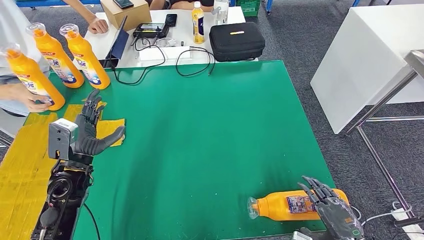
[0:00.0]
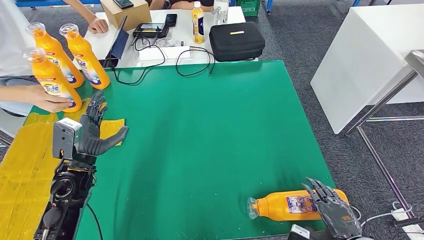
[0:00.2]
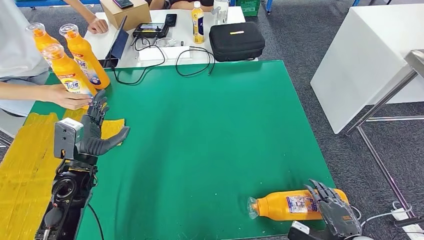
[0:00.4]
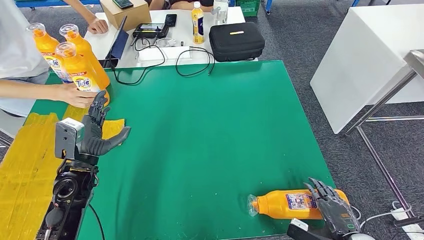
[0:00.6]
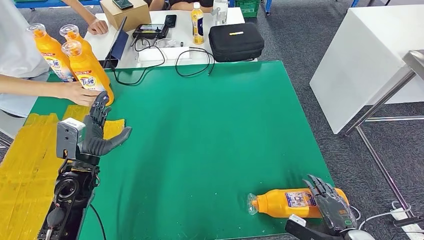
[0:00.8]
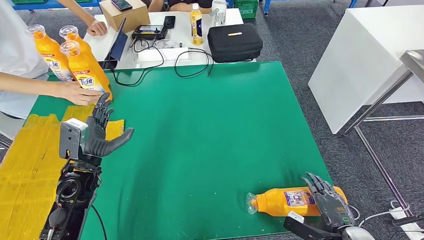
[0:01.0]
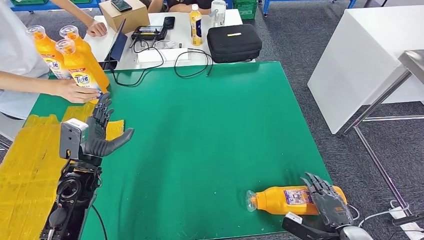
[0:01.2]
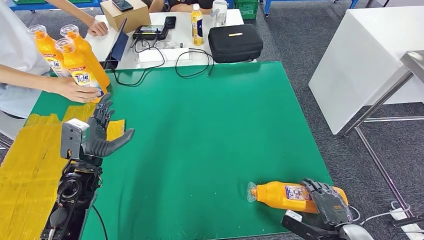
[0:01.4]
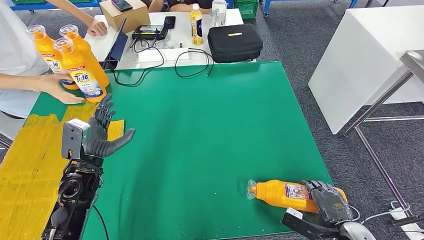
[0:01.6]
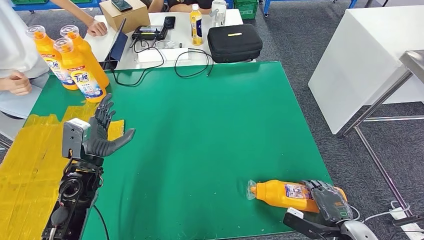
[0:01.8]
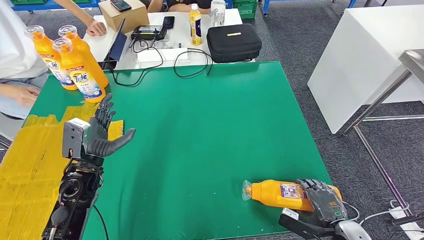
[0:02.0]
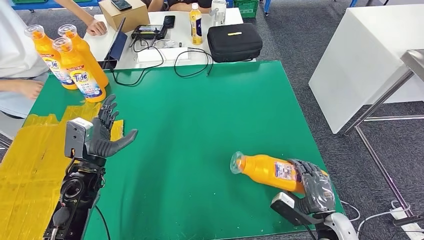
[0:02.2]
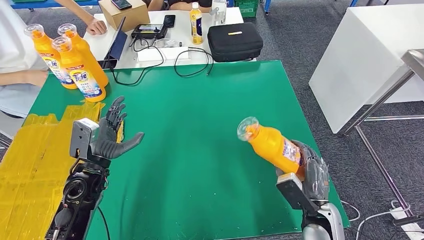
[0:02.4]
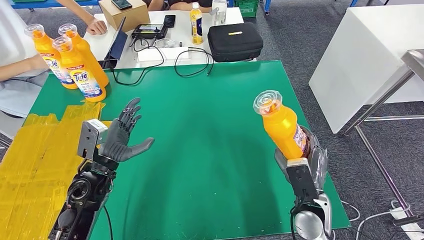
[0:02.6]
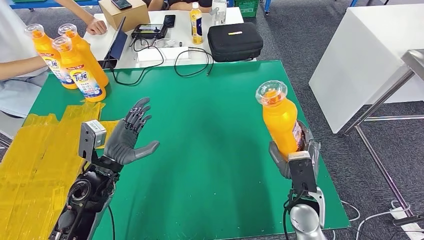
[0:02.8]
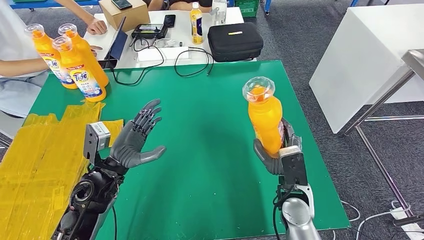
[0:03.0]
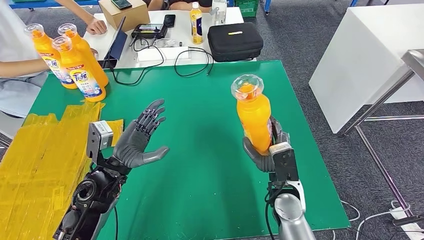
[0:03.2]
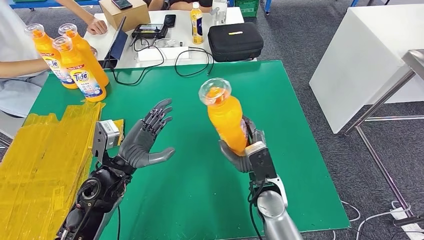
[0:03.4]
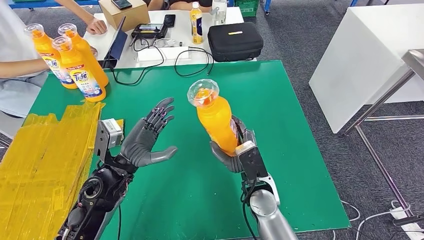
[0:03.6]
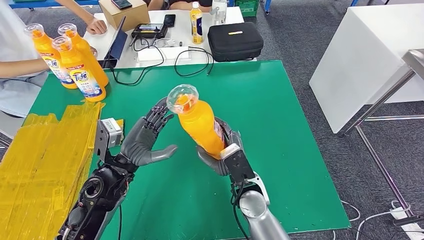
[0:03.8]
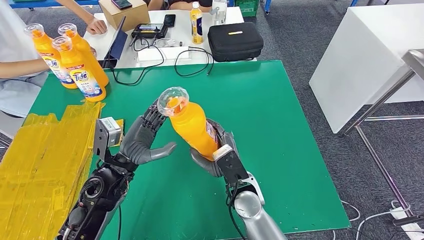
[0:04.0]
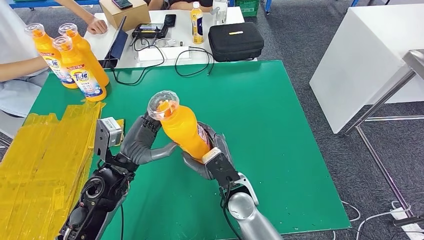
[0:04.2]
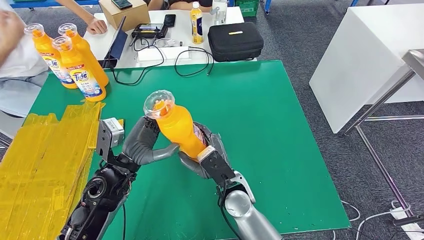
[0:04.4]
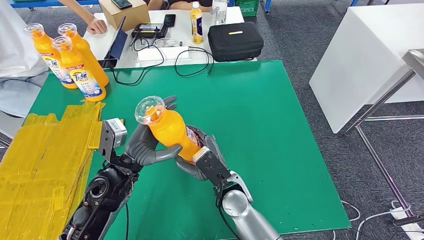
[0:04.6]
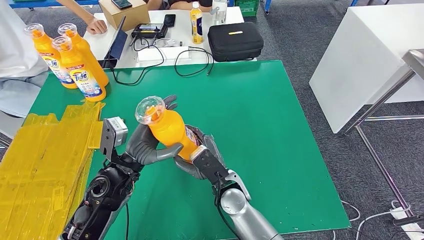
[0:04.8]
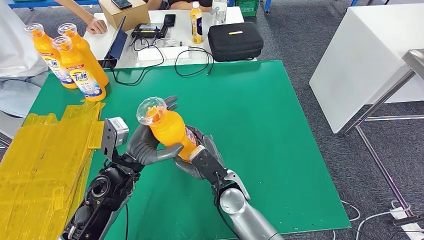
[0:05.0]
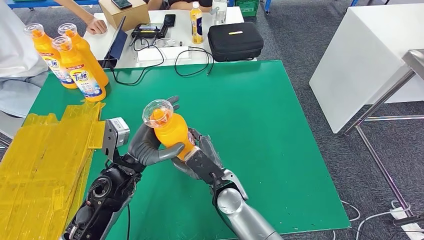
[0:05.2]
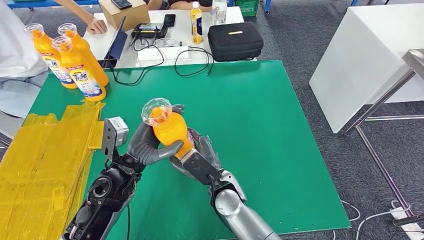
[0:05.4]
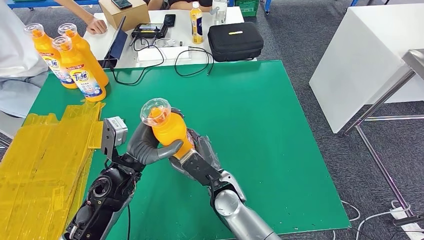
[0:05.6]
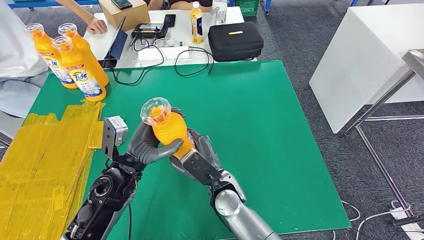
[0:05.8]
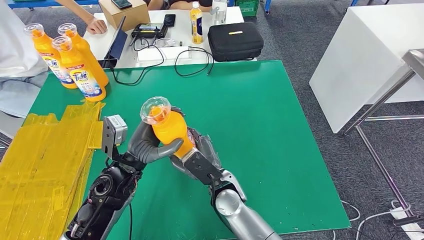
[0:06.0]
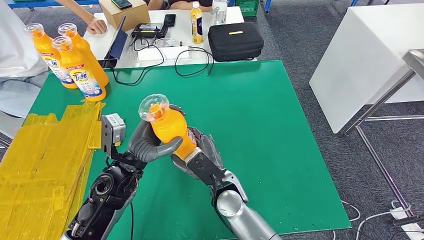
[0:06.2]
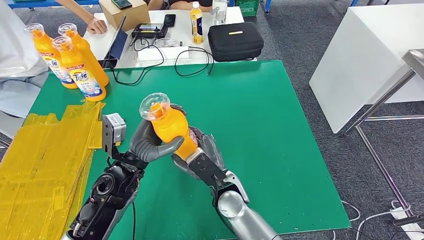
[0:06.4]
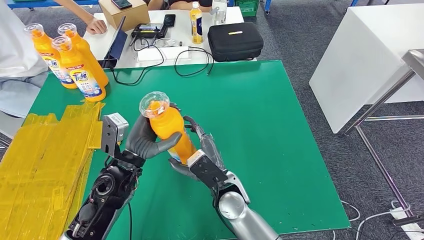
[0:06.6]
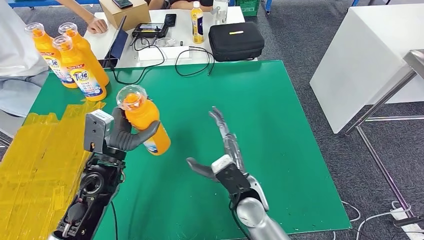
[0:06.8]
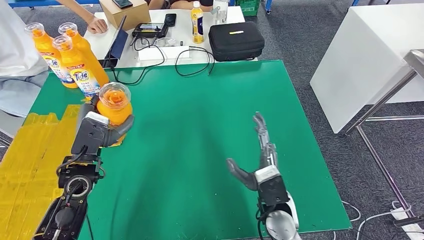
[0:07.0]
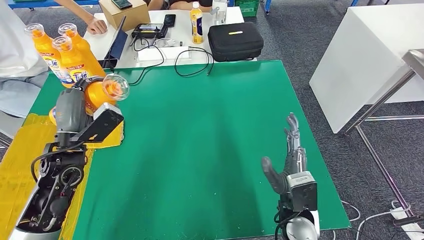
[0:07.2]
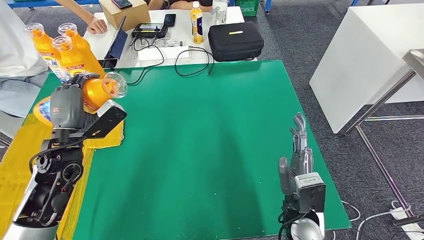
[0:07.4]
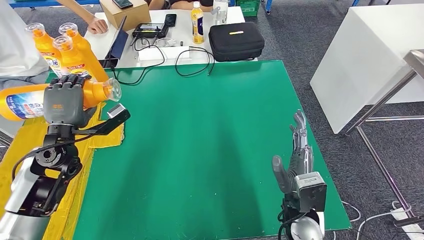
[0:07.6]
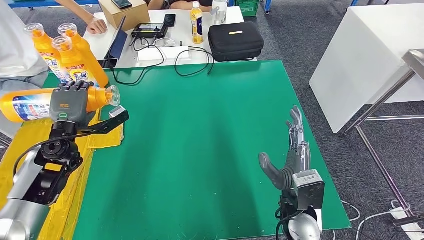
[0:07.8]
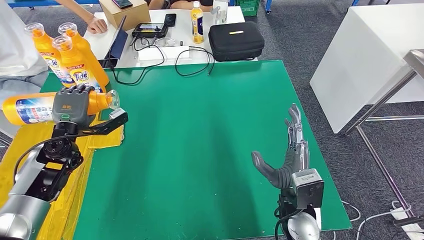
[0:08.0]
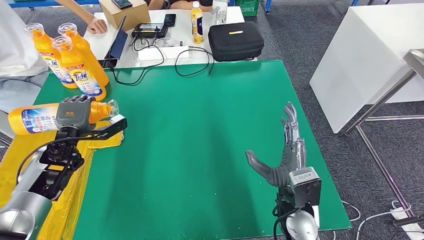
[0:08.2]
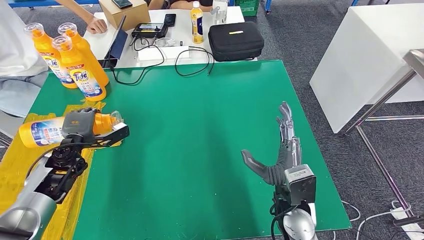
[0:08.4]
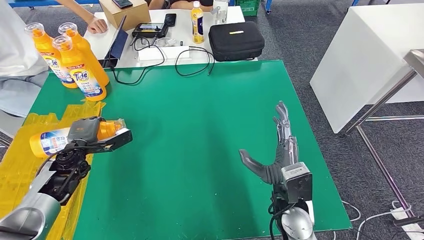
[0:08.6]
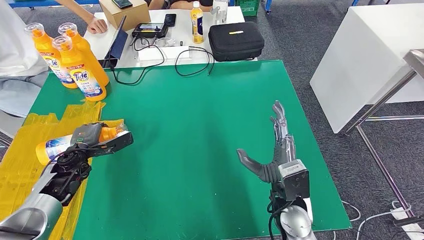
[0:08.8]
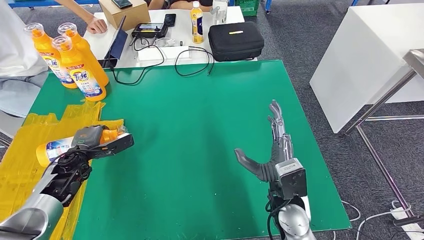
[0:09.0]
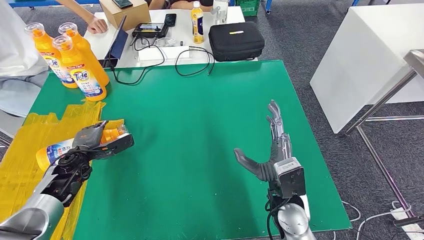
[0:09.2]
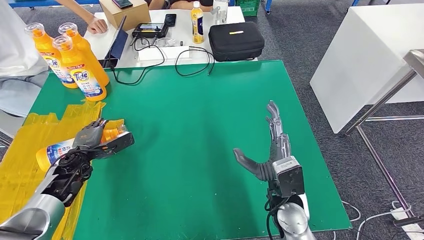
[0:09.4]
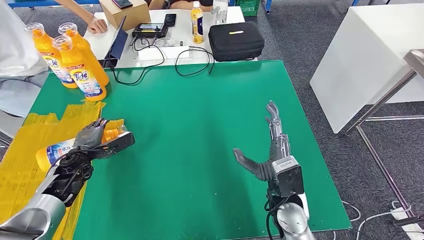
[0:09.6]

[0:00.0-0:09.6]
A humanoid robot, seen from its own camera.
Step, 0:00.0 to 0:04.6: Pick up the bottle from the table.
Step, 0:05.0 to 0:09.4: Flip the bottle to face forward.
0:03.2 to 0:04.8: The right hand shifts approximately 15 cm to the left.
0:04.8 to 0:06.4: The hands move only a little.
0:08.0 to 0:09.6: The left hand shifts about 10 cm downward.
